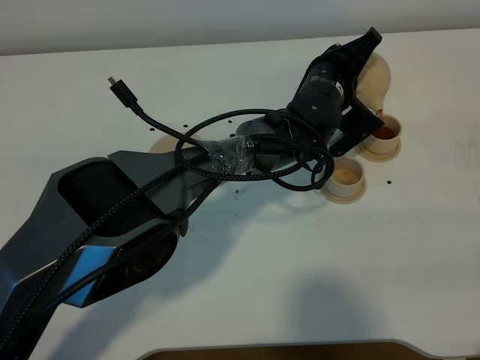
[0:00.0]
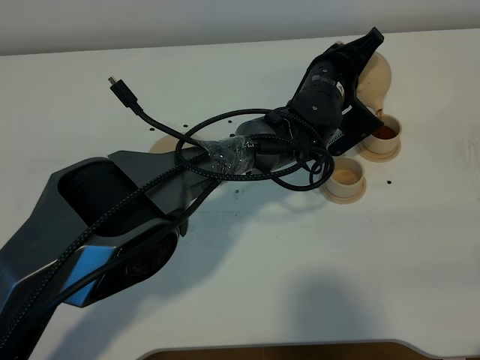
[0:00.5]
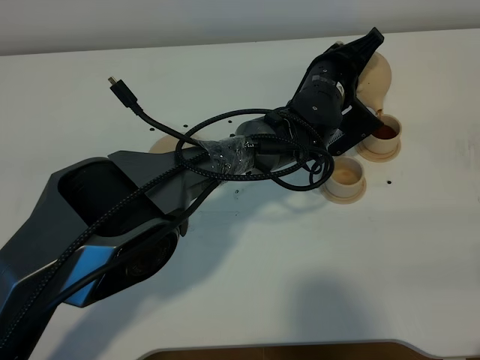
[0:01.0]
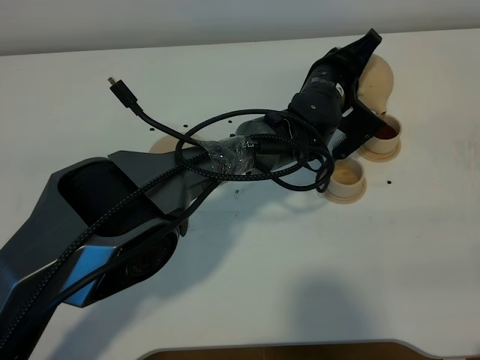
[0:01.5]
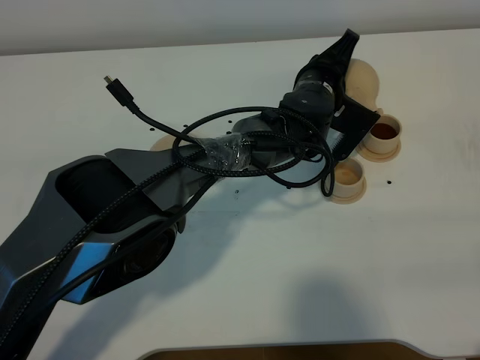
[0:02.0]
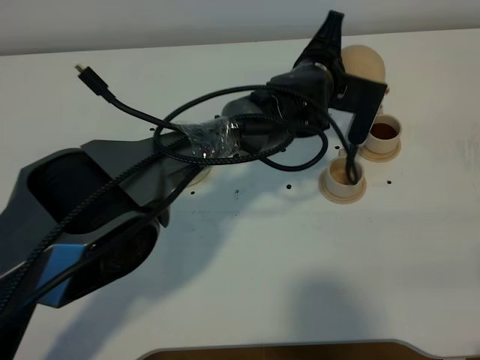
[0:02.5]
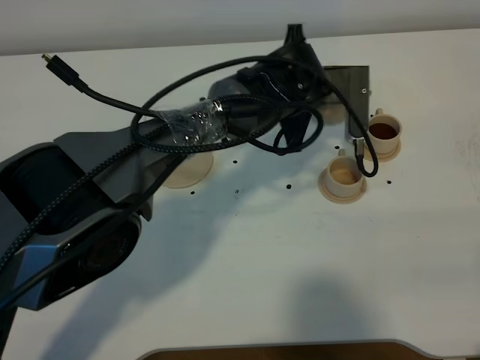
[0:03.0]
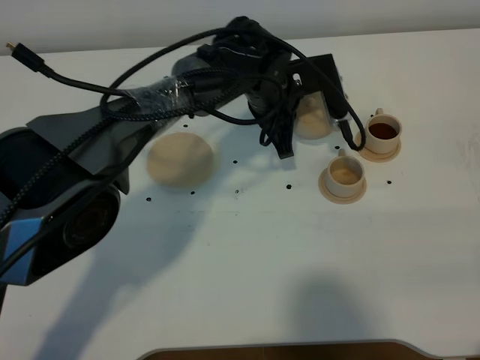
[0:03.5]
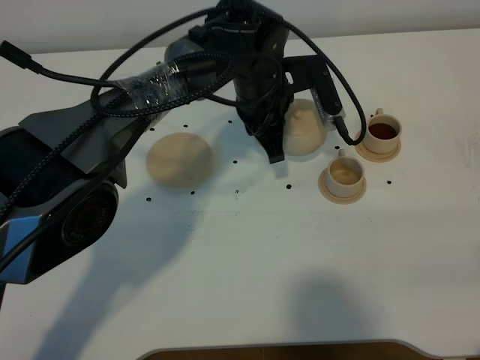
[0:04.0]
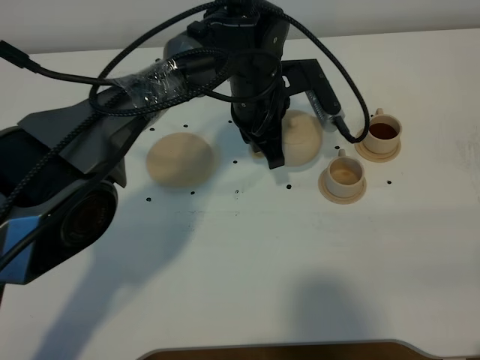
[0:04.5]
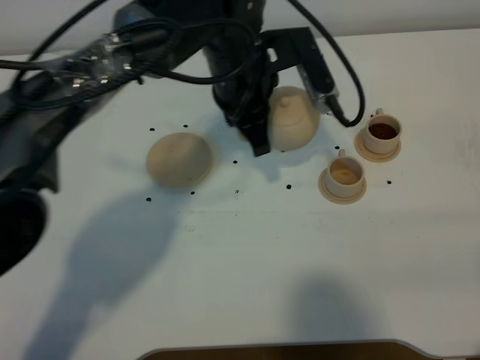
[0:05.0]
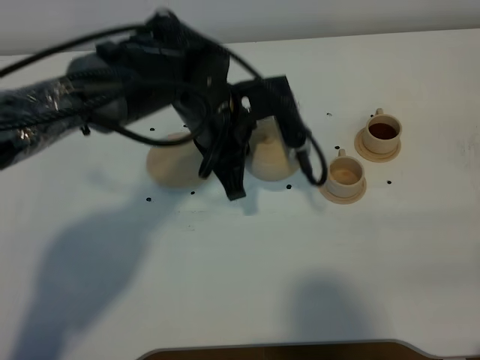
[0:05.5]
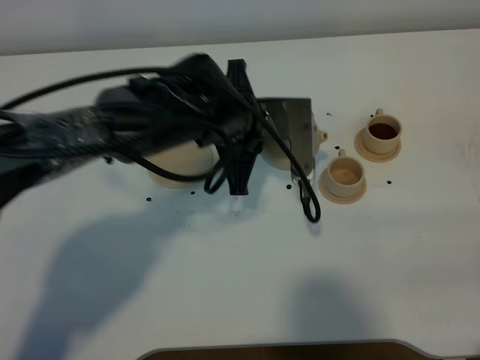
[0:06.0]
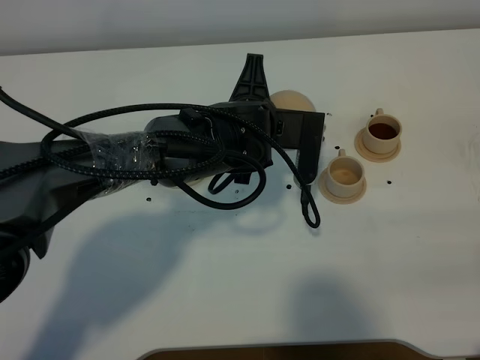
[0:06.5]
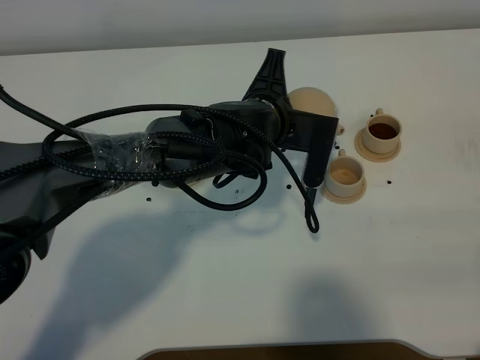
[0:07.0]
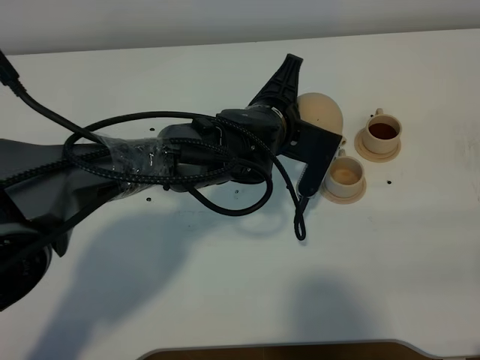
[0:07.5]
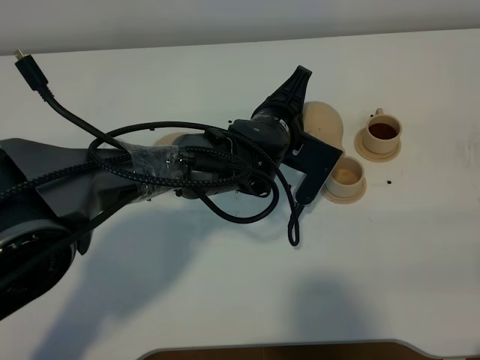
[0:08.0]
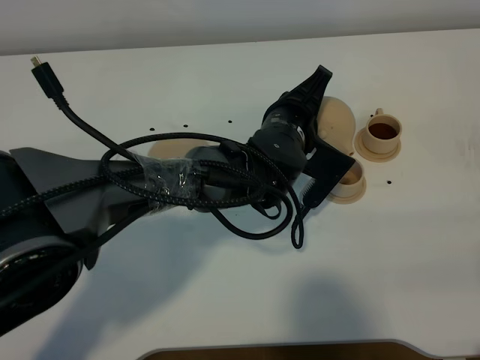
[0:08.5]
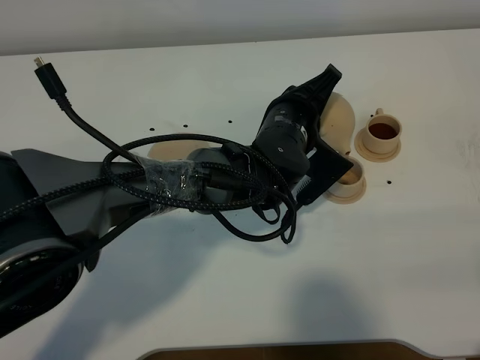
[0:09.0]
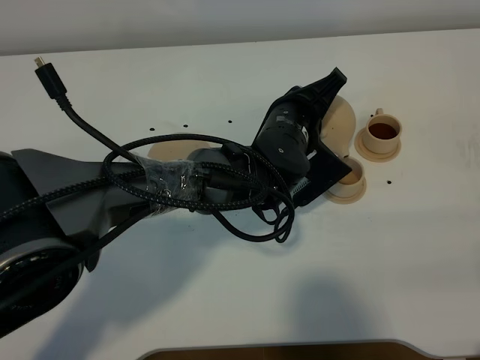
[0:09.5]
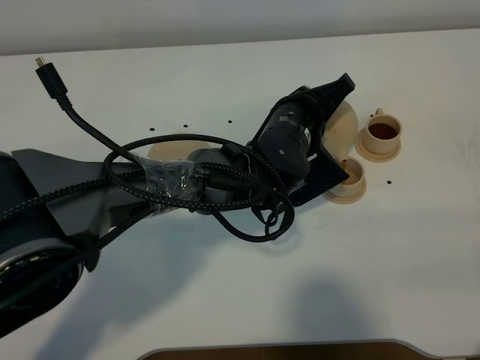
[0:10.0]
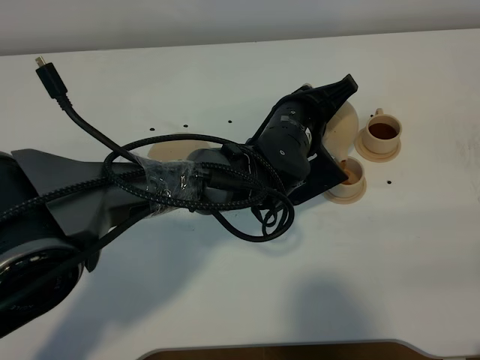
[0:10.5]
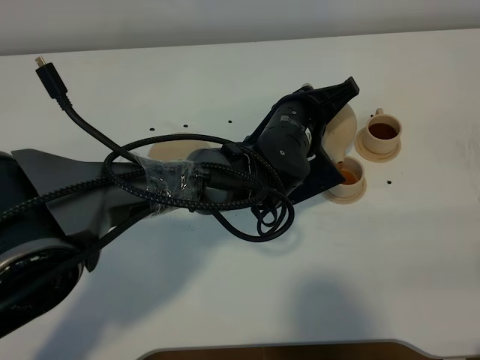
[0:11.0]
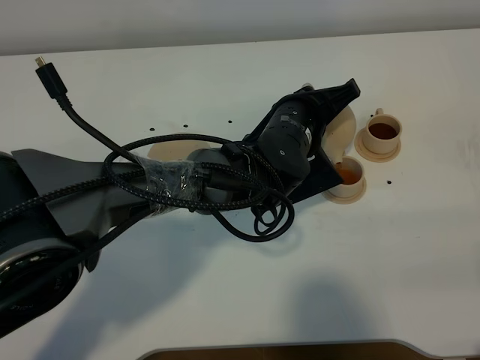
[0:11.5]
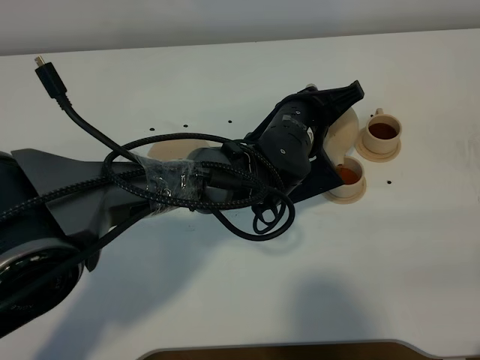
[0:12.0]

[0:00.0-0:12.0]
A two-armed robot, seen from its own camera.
Task of the whole recording: grasp the brown teapot and pour the tea into the two brown teacups one by one, put the brown teapot back in its original place.
Step, 0:00.0 to 0:02.0: Pour tea into the teacup with the left gripper.
0:00.0 to 0:02.0: The grippers stay close to where they were, moving slightly.
0:02.0 to 0:04.0: The left gripper is displaced to the left and upward by approximately 10 cm.
0:04.0 to 0:06.0: The left gripper shifts roughly 10 cm backward.
0:06.0 to 0:08.0: The left gripper goes roughly 5 cm downward.
0:10.0 to 0:12.0: There are only small adjustments of the grippers.

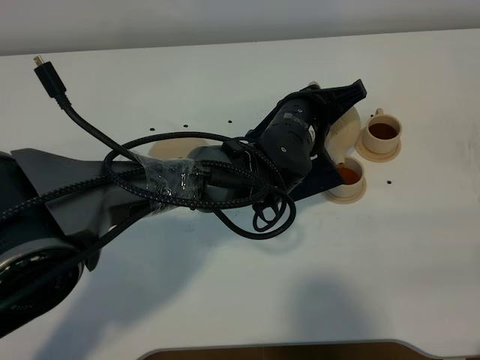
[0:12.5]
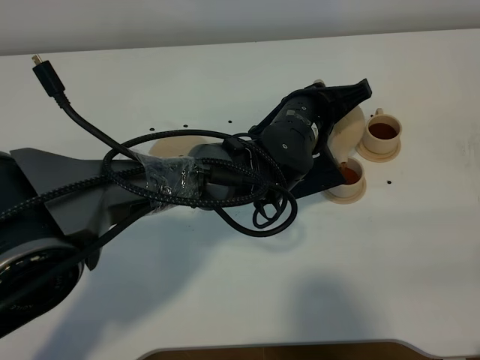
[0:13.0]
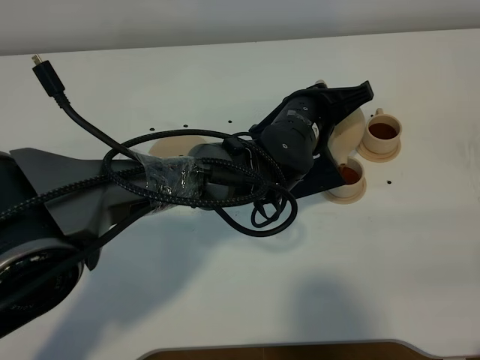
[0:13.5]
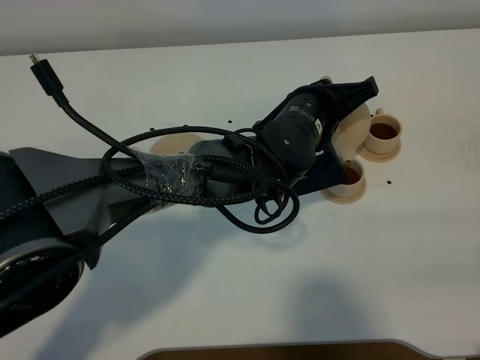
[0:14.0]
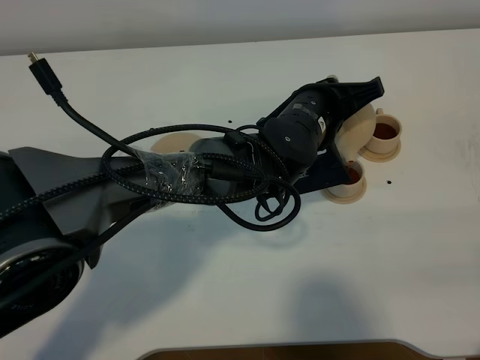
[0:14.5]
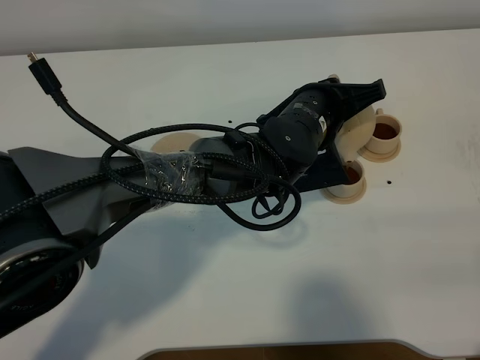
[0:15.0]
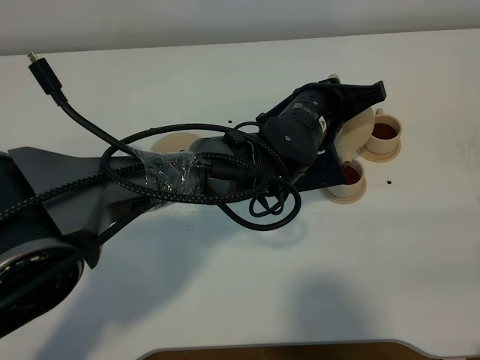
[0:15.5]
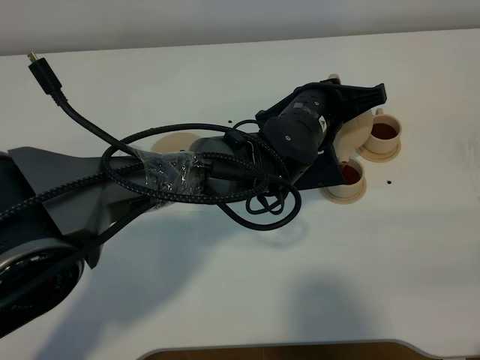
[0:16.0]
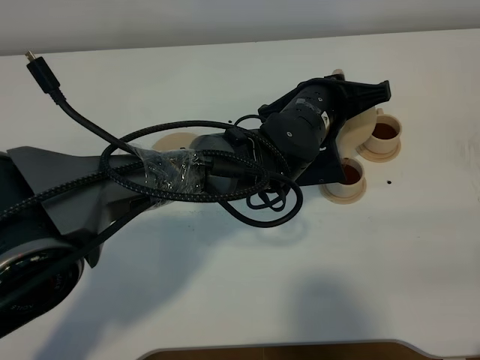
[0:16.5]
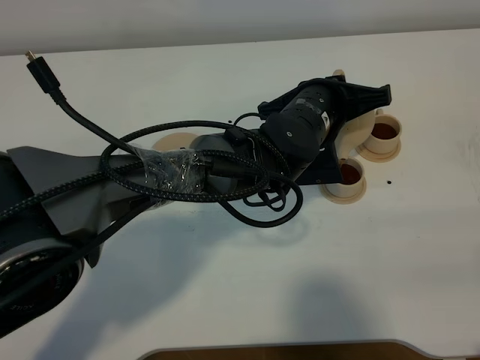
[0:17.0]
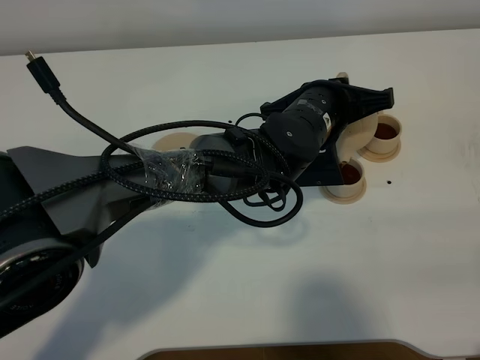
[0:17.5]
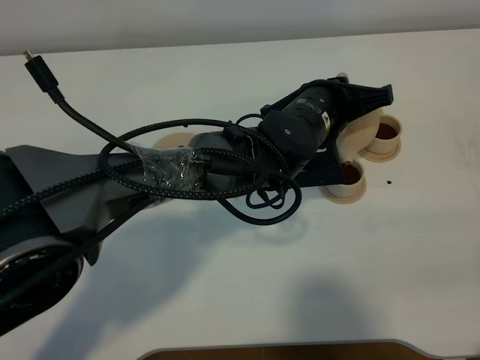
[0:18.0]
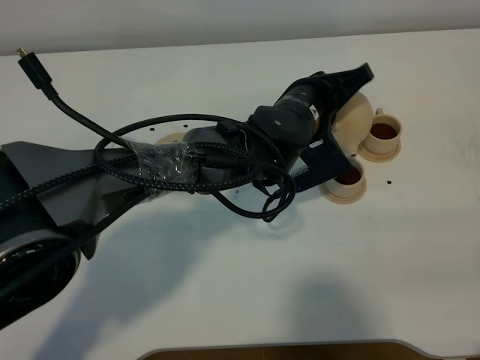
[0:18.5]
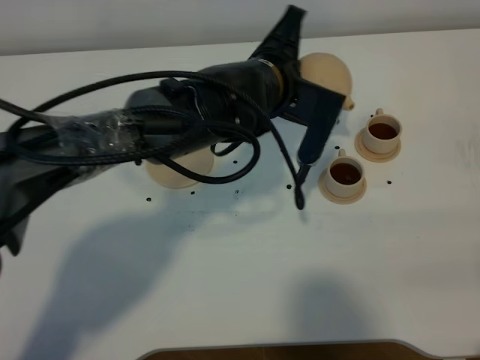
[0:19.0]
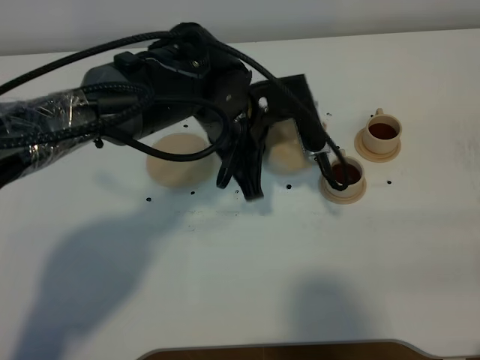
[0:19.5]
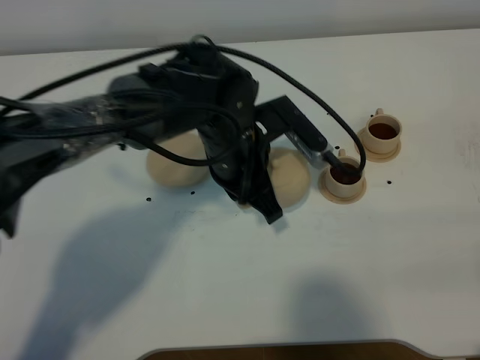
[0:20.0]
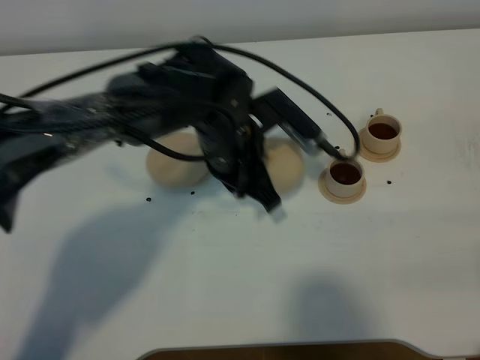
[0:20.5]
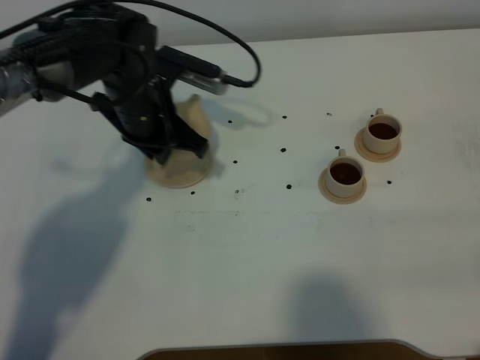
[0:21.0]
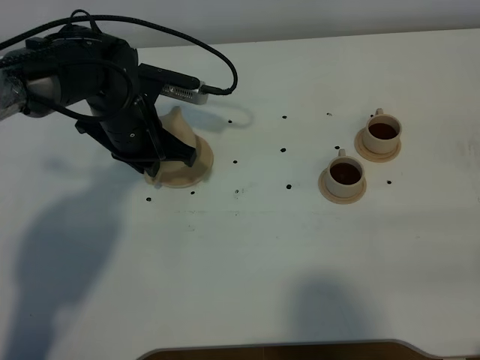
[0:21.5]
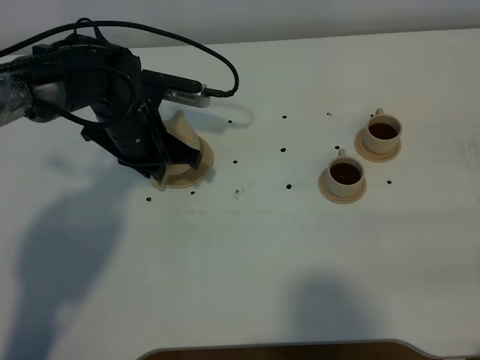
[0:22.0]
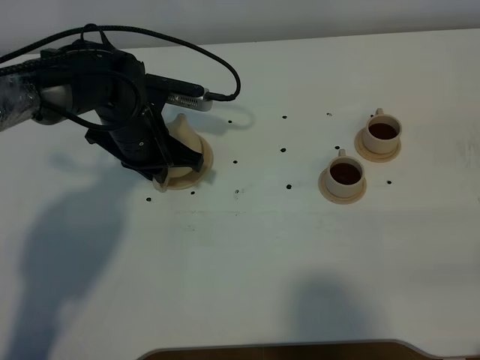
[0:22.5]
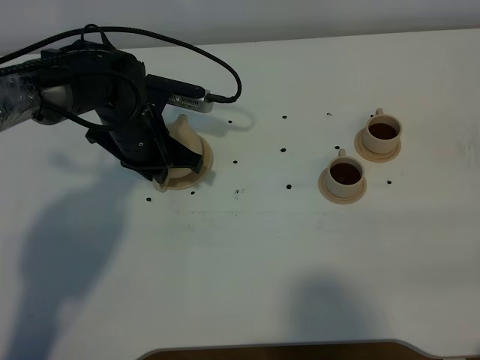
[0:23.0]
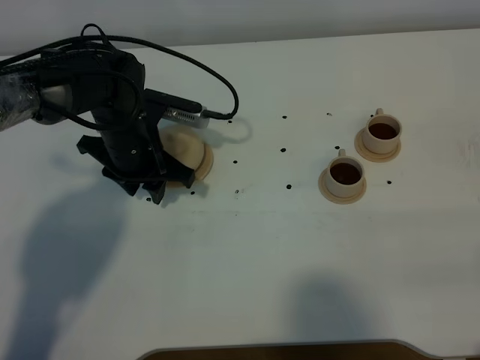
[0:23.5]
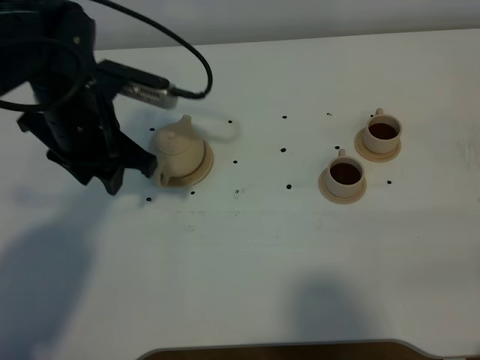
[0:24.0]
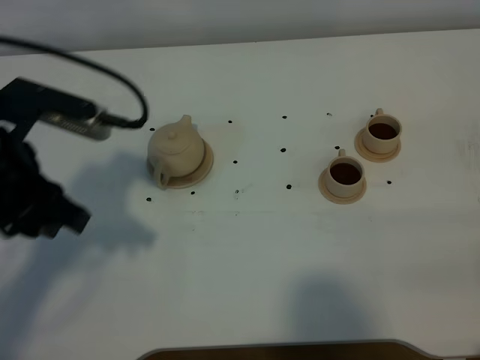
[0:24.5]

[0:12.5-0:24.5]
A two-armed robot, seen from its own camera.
Task of the whole recording: grasp the brown teapot and pour the tea into the two brown teacups one by one, put the brown teapot back in its original place.
Step, 0:12.5 to 0:18.5: Pour tea into the teacup with the left gripper.
0:12.5 to 0:16.5: There are only small adjustments of the grippers.
0:18.5 to 0:20.5: The left gripper travels to the left by some 10 cm.
0:20.5 to 0:22.5: The left gripper goes about 10 cm to the left.
0:22.5 to 0:24.5: The left gripper shifts some 25 cm backward, upward and to the left, and opens up.

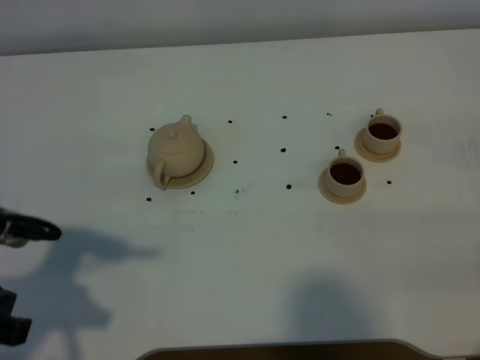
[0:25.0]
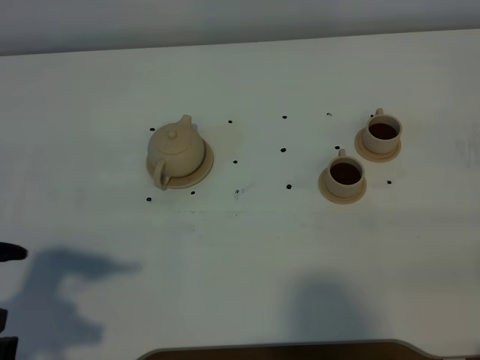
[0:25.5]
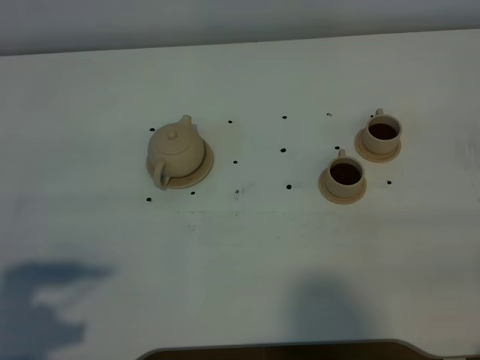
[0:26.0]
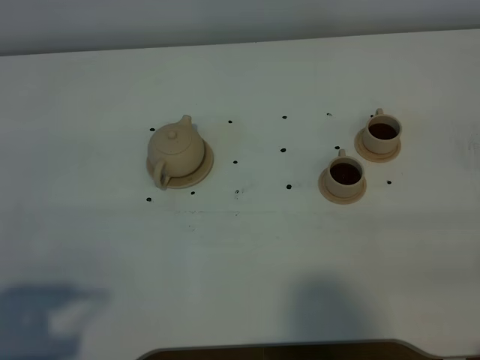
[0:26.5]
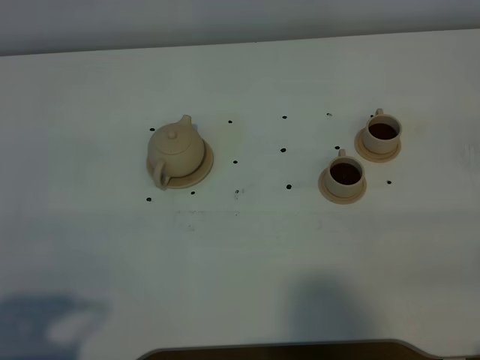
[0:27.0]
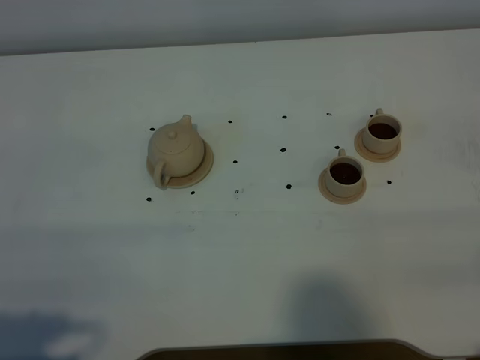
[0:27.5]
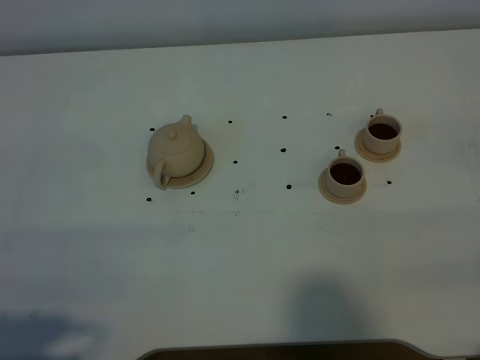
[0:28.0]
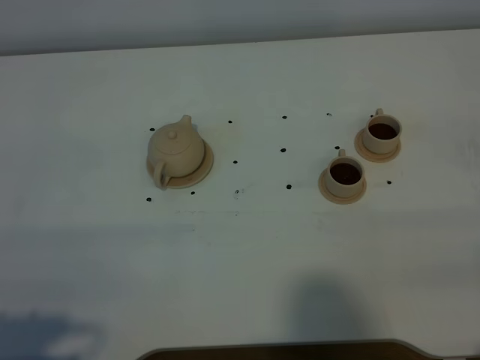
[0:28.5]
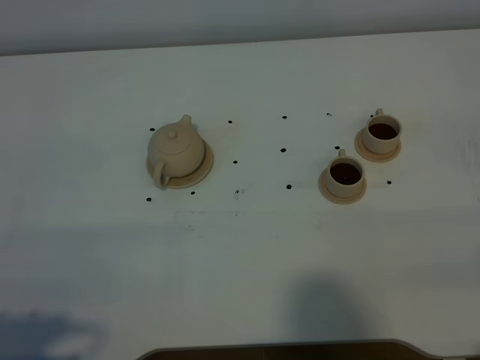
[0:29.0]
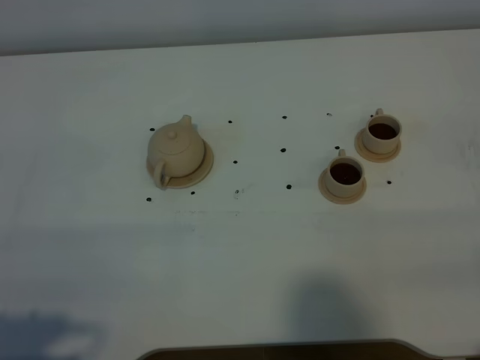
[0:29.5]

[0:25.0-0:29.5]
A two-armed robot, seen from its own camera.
Task of the whole recording: grasp the brown teapot and pour the tea into the two brown teacups one by one, put the brown teapot back in its original place.
0:25.0 to 0:27.0: The left gripper heads backward, covering about 10 cm.
